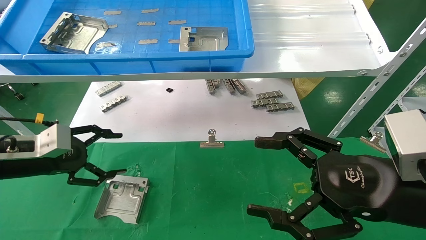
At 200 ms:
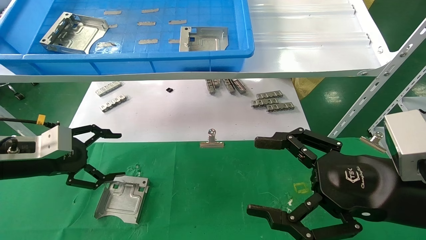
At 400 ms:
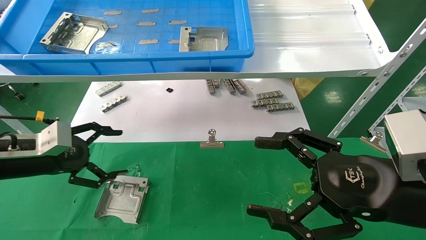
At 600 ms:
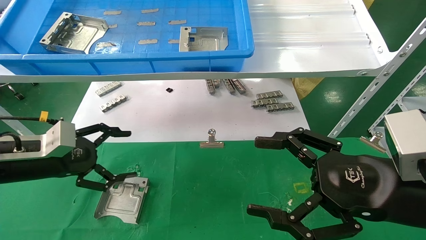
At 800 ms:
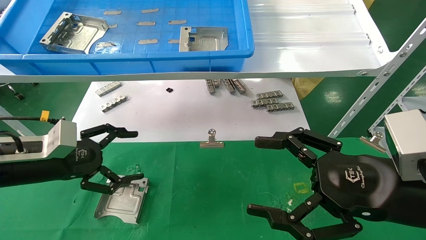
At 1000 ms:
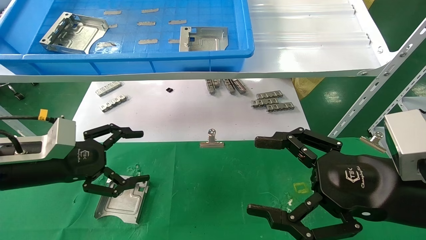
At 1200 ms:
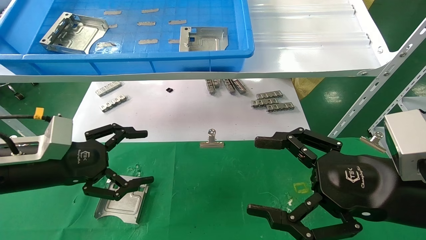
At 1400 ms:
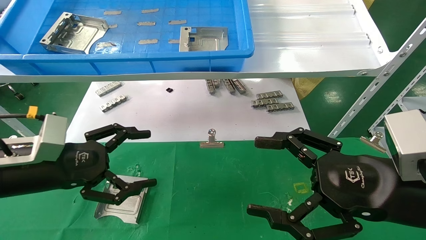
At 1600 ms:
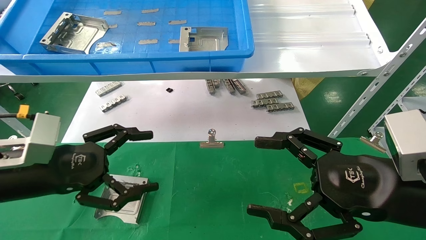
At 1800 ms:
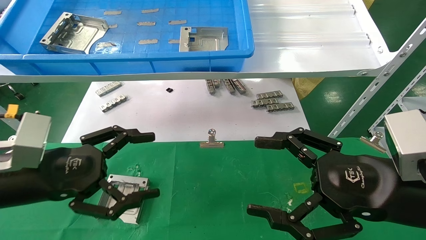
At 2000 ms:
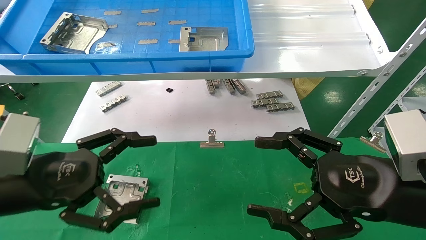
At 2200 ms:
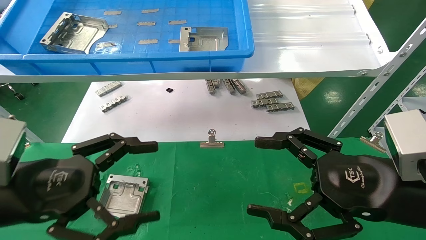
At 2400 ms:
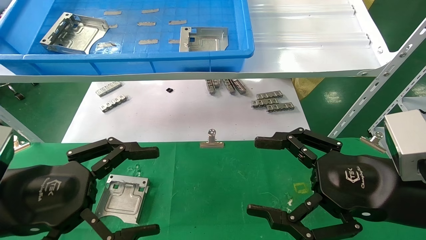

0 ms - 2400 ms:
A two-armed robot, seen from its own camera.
Task of the whole recording: use the mechanical arm to pick up the parts and place them on the table.
0 ms - 1200 ms: The left gripper goes roughly 5 cm to the right.
1200 ms - 2400 ms: The left gripper goes approximately 10 cm backward.
